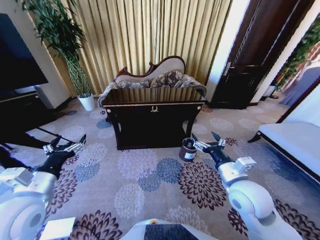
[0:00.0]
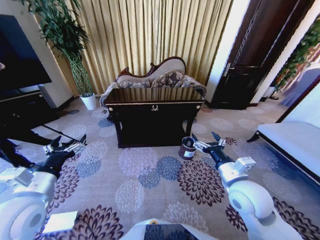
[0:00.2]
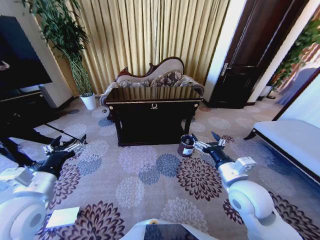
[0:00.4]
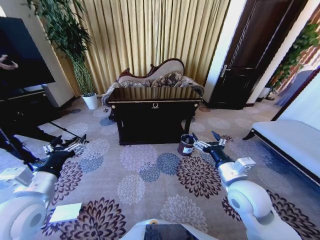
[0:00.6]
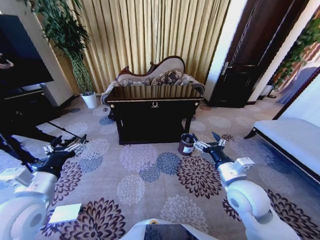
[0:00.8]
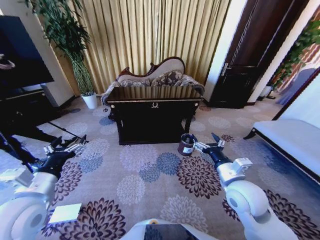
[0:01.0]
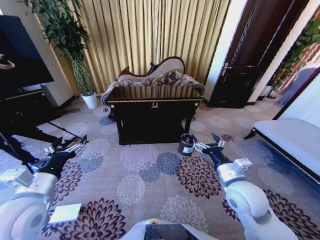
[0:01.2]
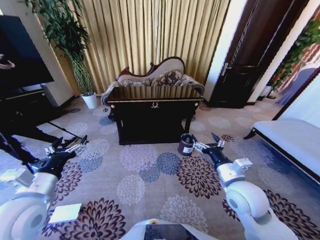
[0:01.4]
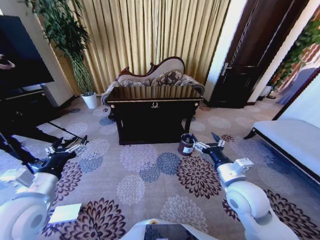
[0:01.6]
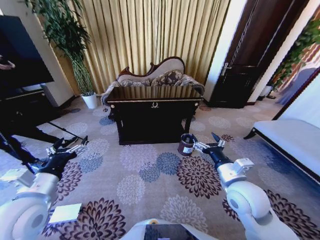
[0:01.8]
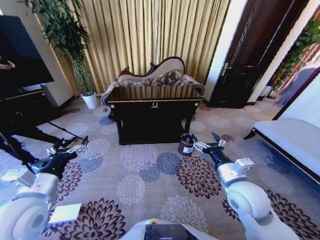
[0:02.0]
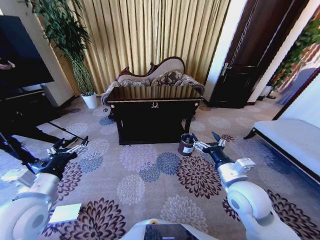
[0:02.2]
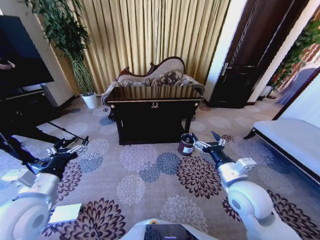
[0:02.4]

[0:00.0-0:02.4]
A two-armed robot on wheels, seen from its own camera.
Task of the whole recording: Move to the front of the table and place the trash on the table into the trash bin.
0:01.2 to 0:02.4: Neither gripper changes place.
